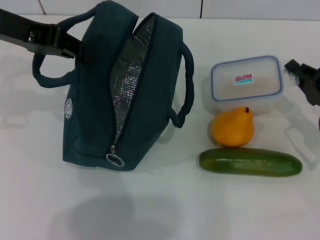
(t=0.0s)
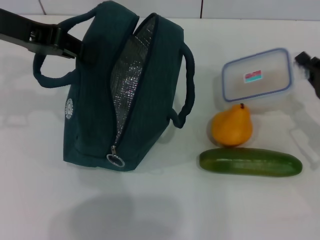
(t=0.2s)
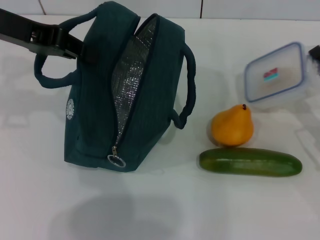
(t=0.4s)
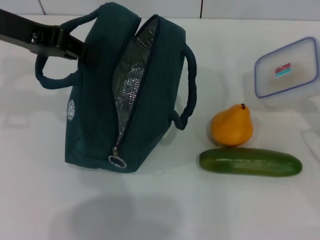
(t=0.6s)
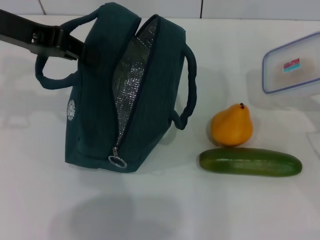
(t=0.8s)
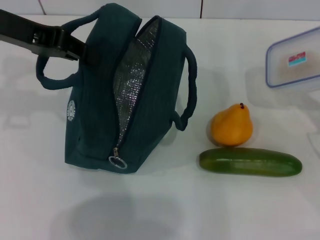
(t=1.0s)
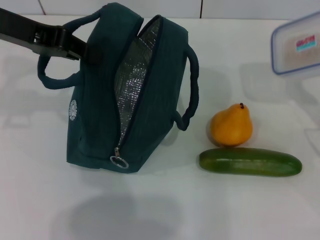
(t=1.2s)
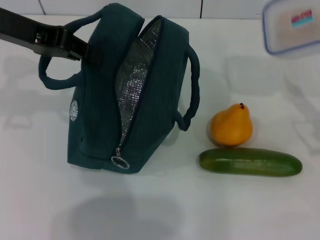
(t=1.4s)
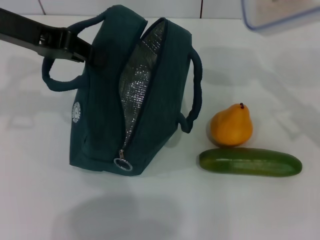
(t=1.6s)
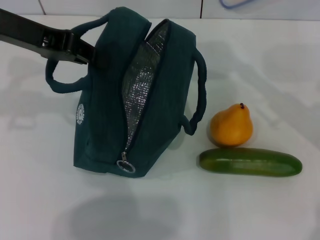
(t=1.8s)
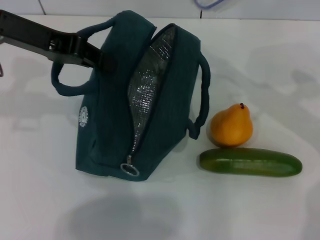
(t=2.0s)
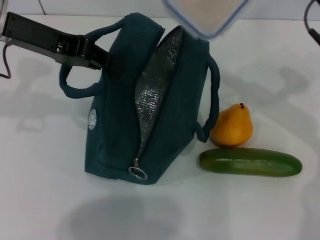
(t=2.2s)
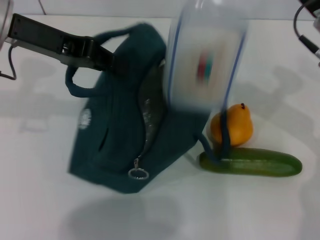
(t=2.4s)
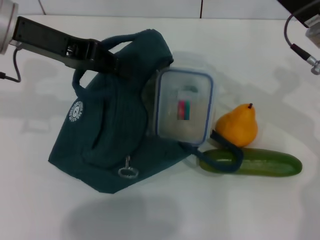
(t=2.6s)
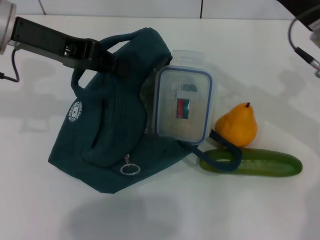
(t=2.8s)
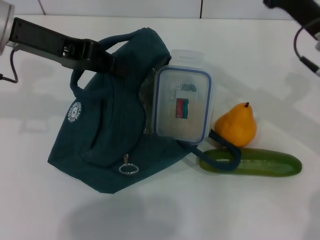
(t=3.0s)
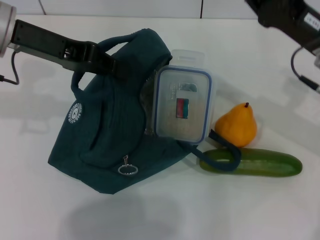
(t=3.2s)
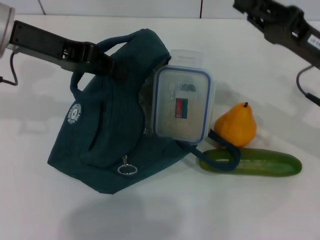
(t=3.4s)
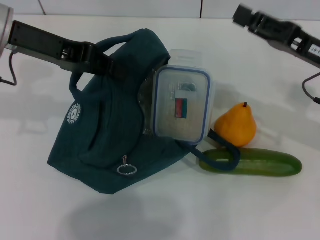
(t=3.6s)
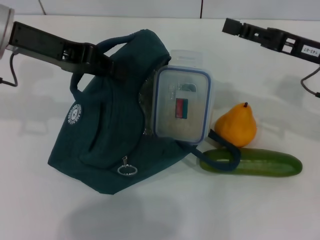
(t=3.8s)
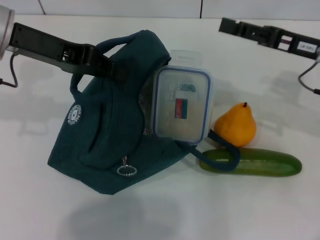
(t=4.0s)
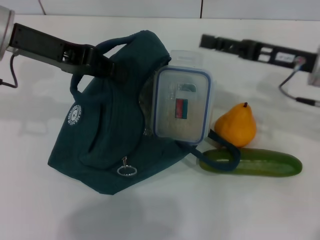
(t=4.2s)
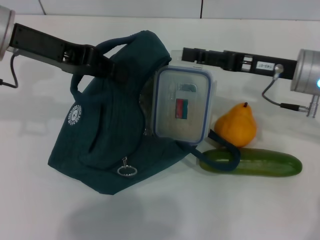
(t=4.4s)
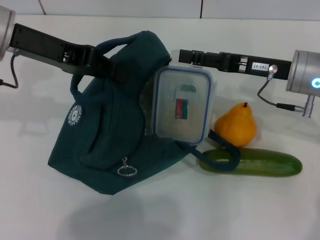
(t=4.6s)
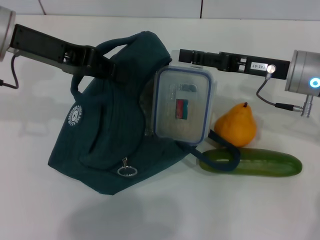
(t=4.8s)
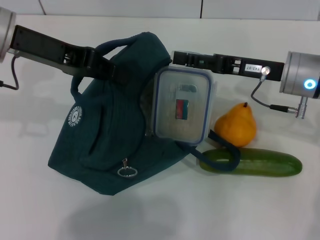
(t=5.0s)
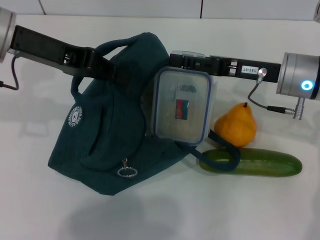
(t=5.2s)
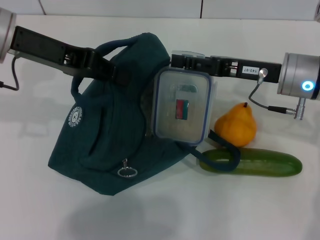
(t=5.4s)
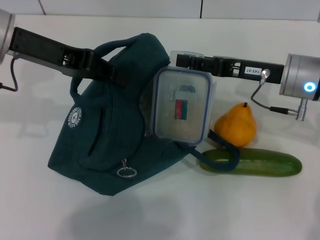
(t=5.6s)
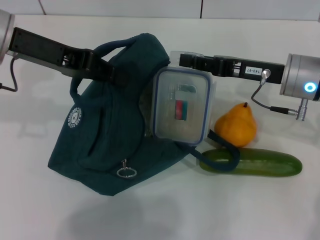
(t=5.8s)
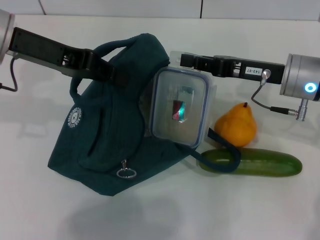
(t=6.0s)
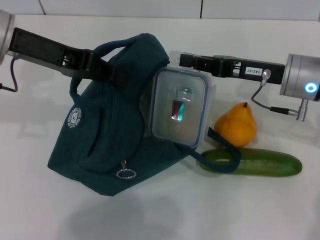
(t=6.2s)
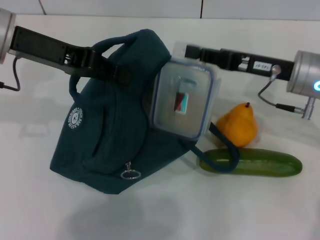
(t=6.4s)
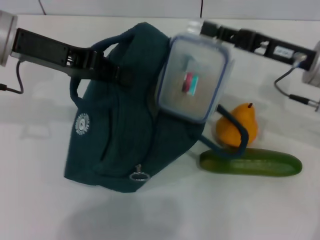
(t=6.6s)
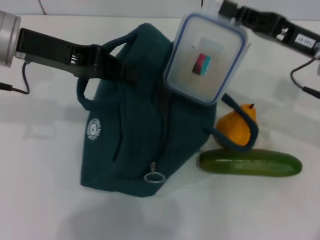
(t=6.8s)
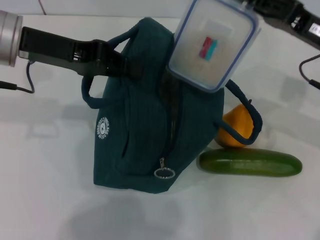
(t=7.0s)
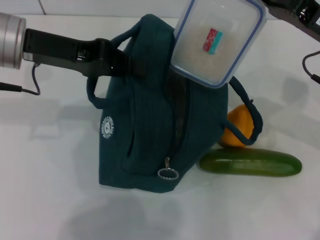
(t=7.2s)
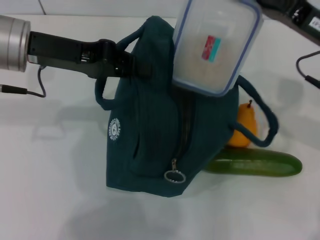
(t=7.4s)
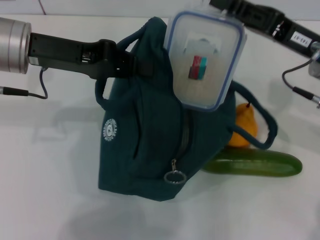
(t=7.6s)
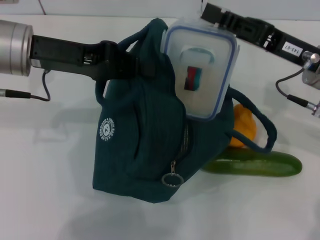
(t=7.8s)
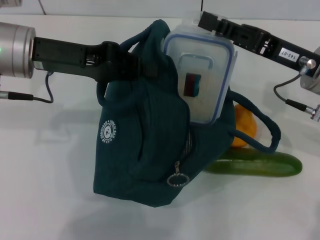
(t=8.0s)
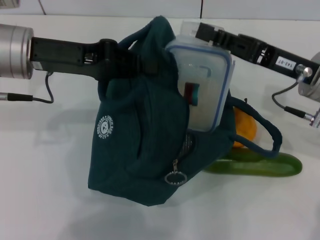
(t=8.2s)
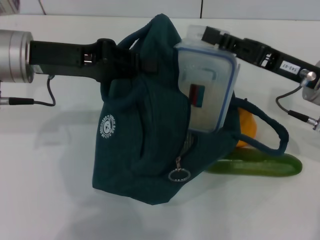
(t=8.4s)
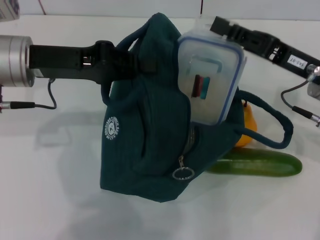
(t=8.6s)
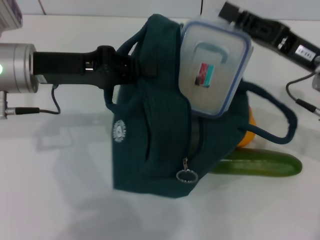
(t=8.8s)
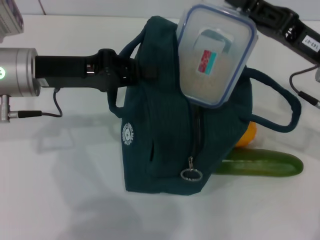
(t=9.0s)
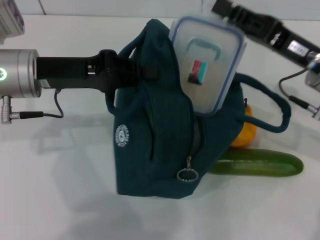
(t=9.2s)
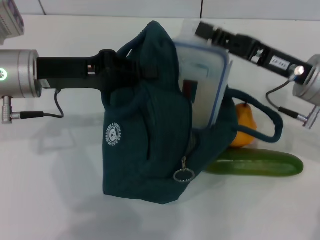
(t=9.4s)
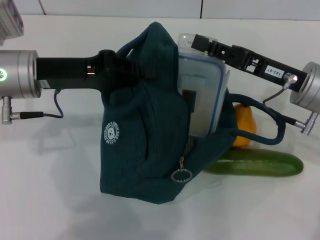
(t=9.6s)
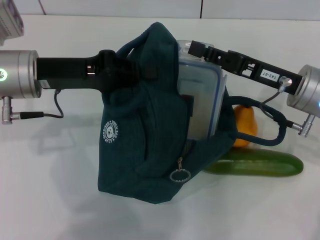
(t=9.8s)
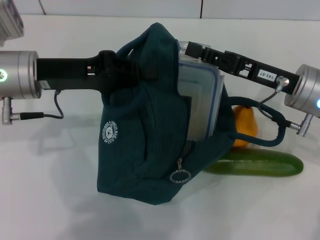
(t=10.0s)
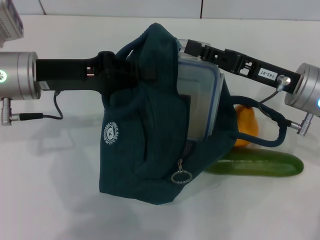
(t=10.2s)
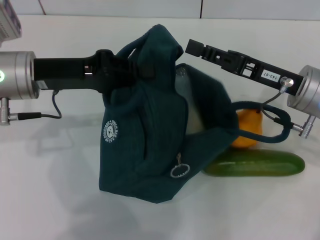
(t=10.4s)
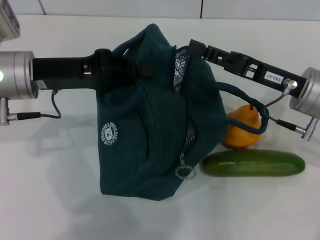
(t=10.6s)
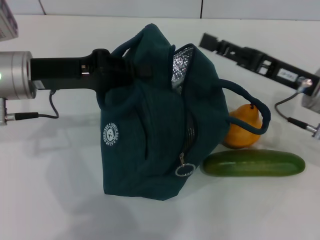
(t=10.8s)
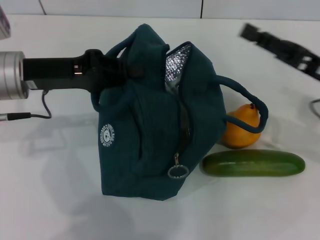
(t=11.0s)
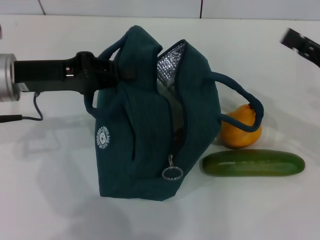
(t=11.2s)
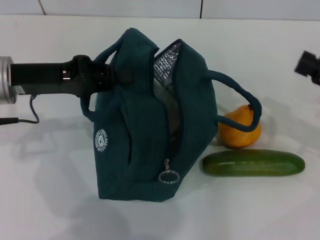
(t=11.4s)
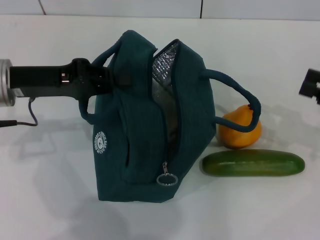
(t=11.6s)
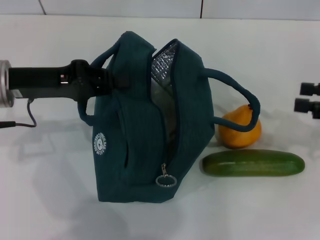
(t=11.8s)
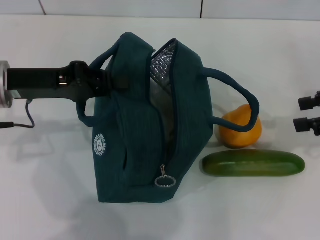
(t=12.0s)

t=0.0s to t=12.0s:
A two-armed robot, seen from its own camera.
Step, t=0.0s to t=6.4s: Pick up the lunch box with your right hand.
Step, t=6.8s to t=10.4s: Place the lunch box into the lunch bag with your right hand.
t=0.0s to t=1.6s: The right gripper heads upward, covering roughly 10 cm.
t=1.6s to t=3.0s: The right gripper travels to the left by roughly 5 cm.
t=3.0s to t=4.4s: The right gripper opens its fingers.
t=4.4s to t=6.0s: The right gripper closes up.
t=10.4s to t=12.0s: The right gripper goes roughly 15 cm to the right and upward, and opens its fingers.

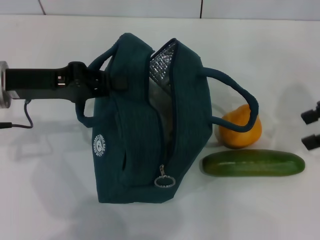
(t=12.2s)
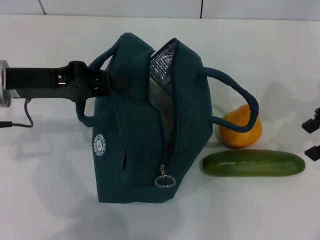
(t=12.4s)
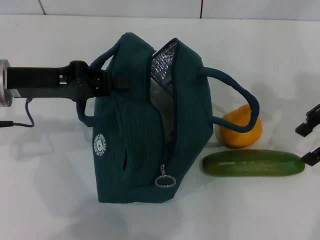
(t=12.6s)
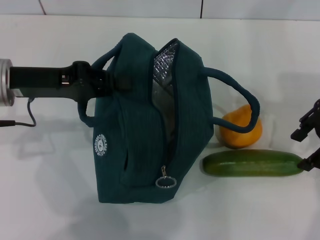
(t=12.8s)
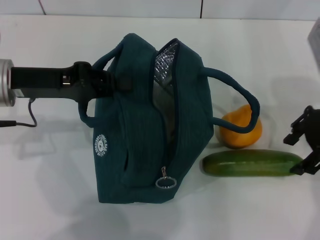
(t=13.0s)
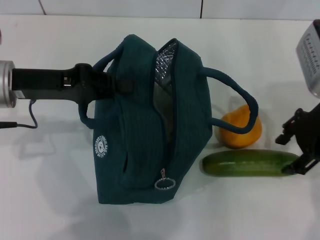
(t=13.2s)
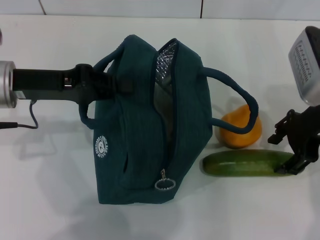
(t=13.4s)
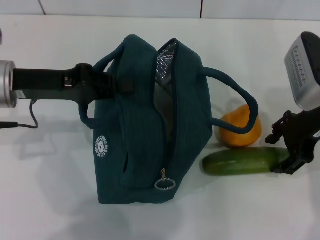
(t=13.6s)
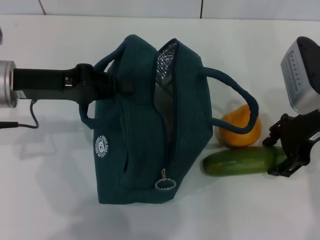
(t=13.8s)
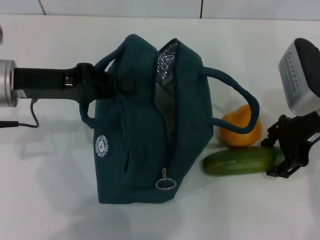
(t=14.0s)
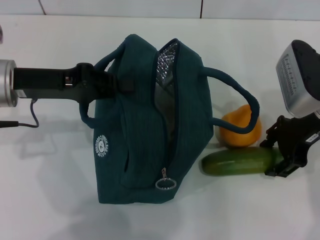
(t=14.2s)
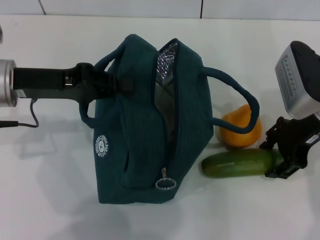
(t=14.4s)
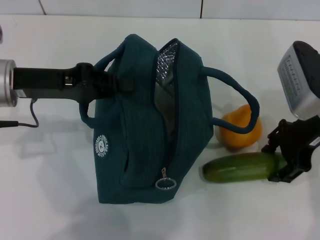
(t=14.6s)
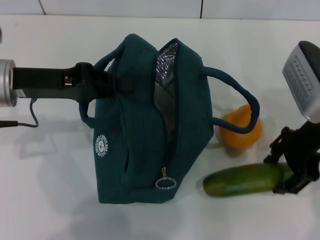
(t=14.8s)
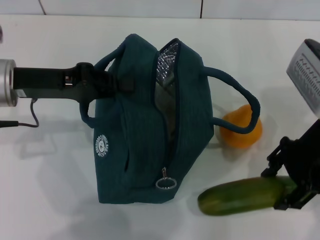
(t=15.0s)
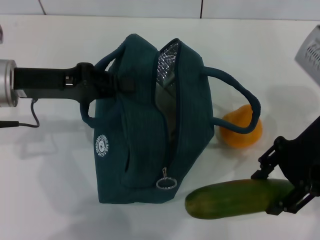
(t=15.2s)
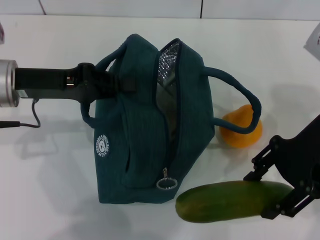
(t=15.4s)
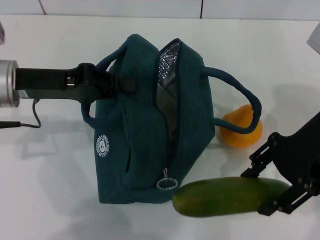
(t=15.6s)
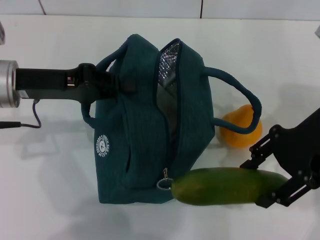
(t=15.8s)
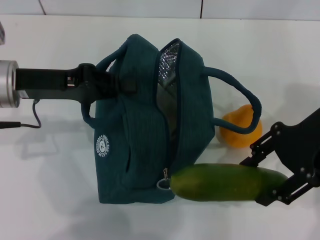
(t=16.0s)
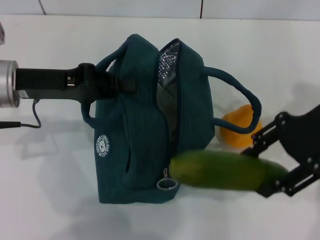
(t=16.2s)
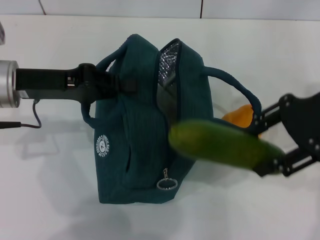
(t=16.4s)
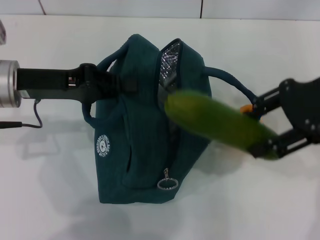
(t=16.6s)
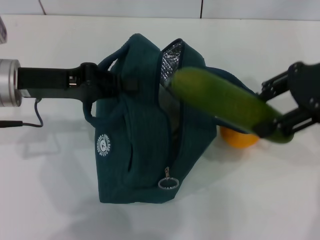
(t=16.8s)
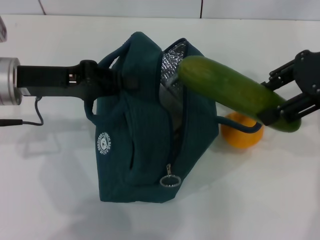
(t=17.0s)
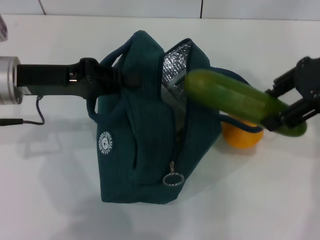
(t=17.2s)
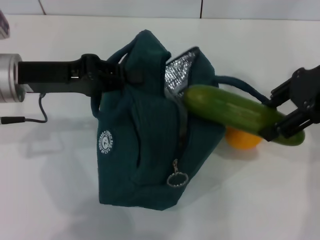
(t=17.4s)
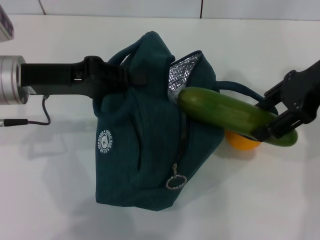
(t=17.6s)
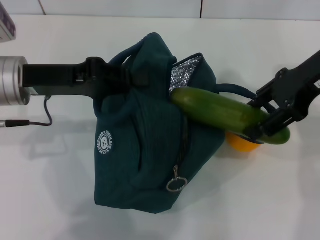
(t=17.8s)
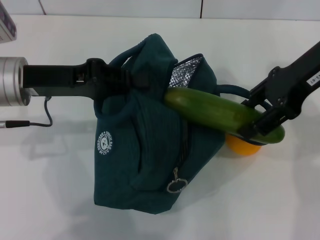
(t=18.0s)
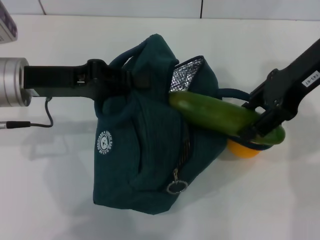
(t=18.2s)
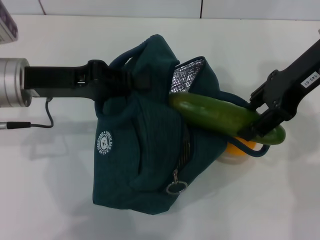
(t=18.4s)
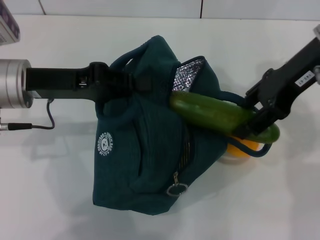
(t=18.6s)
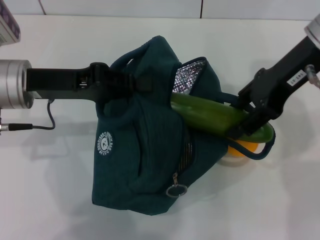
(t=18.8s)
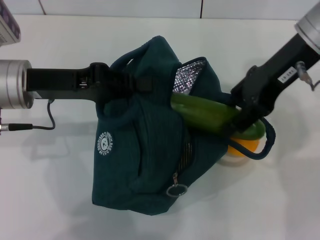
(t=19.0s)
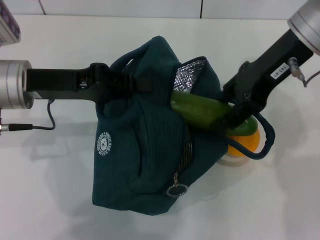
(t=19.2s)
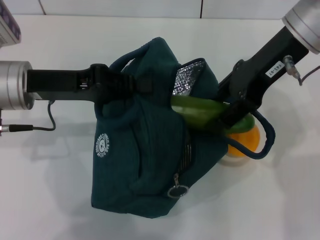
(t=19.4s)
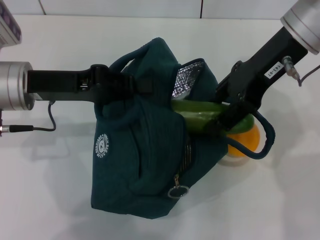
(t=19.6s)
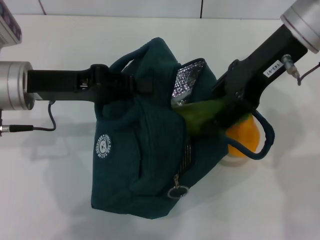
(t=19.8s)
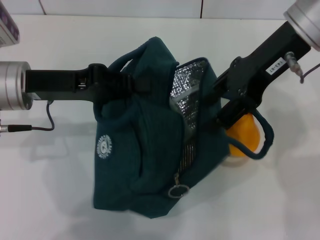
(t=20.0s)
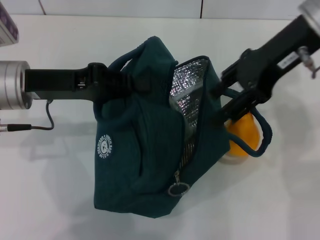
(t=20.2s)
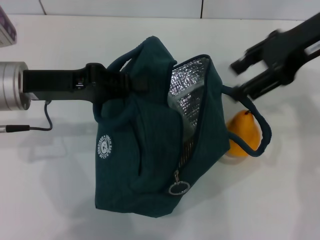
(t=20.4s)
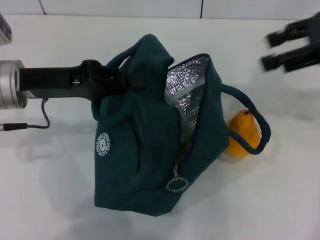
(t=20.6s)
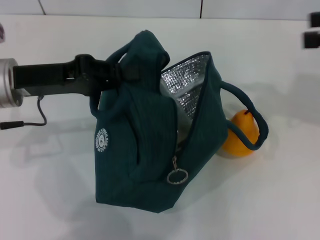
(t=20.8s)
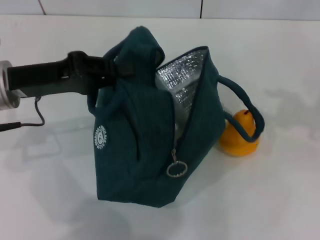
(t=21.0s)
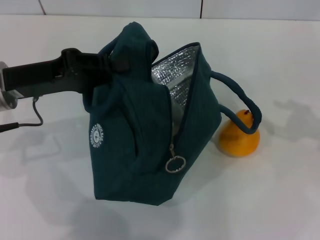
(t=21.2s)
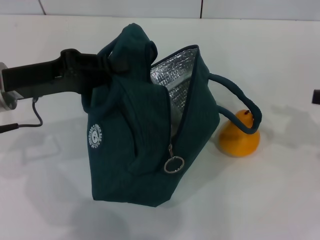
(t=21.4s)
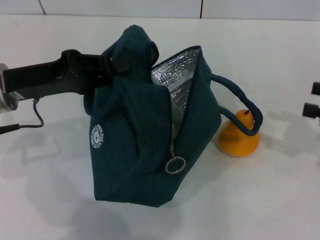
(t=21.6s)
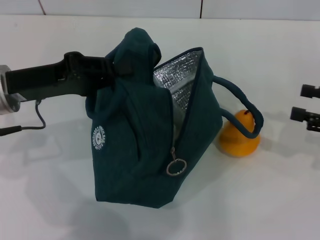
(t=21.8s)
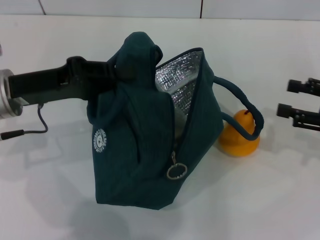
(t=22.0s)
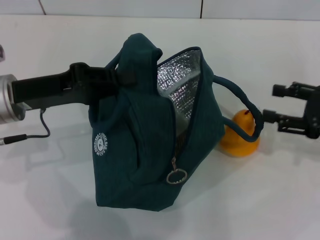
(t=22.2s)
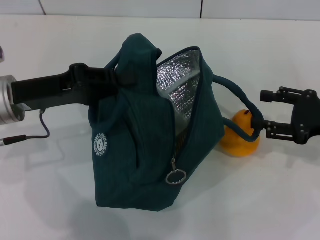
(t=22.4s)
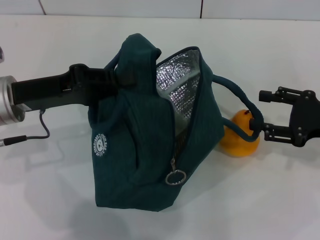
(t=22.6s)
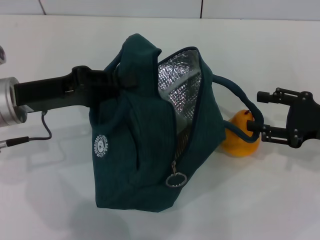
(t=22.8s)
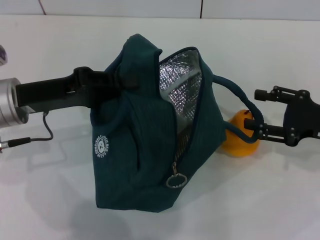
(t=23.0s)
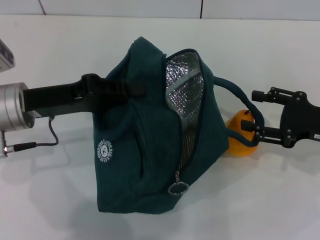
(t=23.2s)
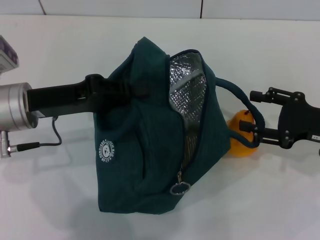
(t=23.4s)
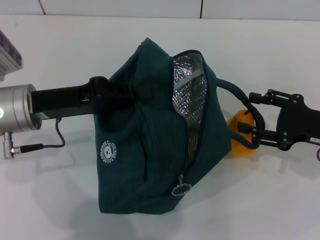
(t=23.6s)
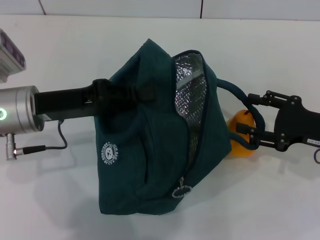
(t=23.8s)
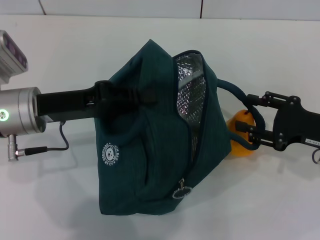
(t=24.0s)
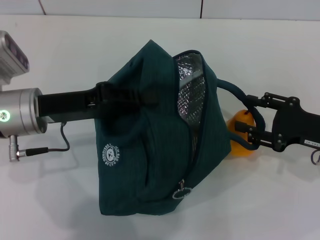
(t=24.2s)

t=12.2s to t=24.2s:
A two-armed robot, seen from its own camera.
Step, t=12.2s to t=14.6s: Pick up the cucumber with your right hand.
Step, t=14.8s to t=19.8s: Put the cucumber into the lunch bag with your right hand.
t=12.2s to t=13.8s: The right gripper heads to the left and downward, covering approximately 10 cm.
t=13.8s to t=15.2s: The right gripper shifts by roughly 5 cm.
t=15.2s to t=16.6s: The right gripper changes place by roughly 5 cm.
t=16.6s to t=18.2s: The right gripper ends up approximately 5 cm from where it was.
t=19.8s to t=21.2s: The right gripper moves to the right, about 25 cm.
t=21.2s to t=22.6s: The right gripper heads downward and to the left, covering approximately 10 cm.
t=22.6s to t=24.2s: The grippers make only small movements.
